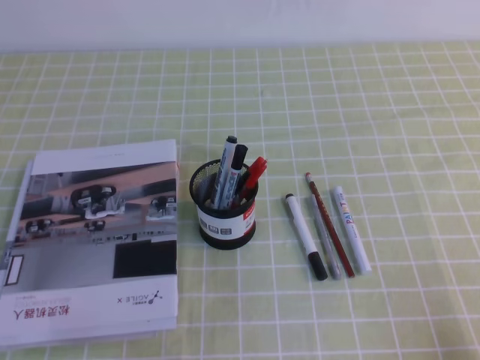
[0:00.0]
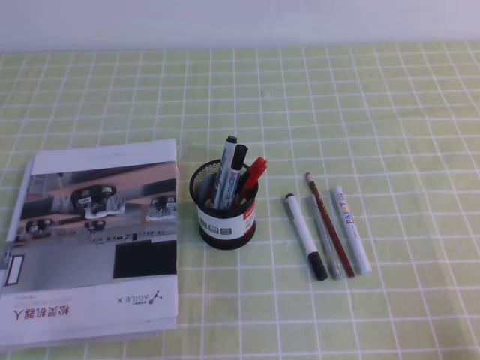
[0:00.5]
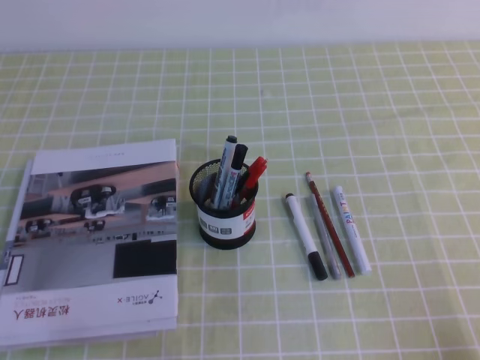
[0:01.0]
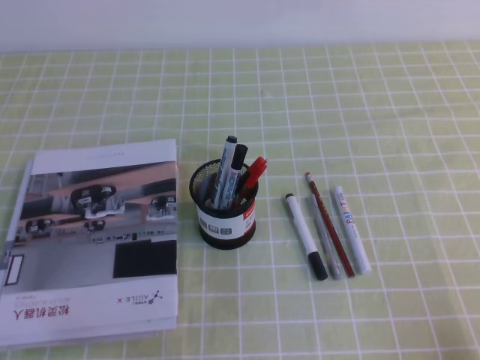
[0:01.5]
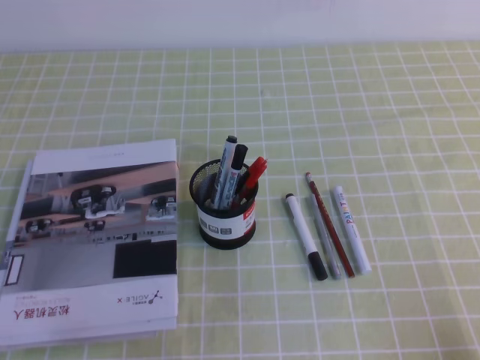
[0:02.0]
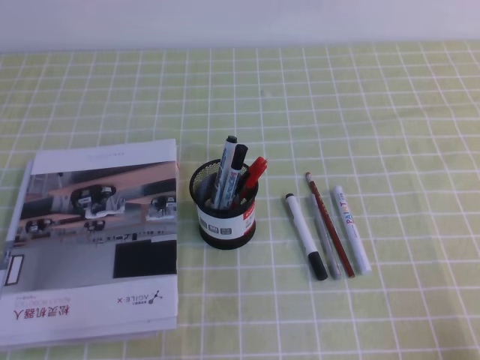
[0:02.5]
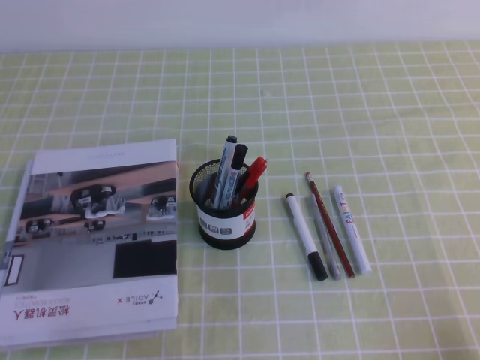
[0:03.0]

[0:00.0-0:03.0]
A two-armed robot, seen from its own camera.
0:00.0 to 0:03.0: Neither gripper changes place.

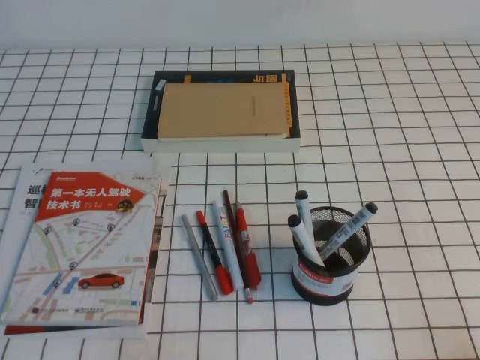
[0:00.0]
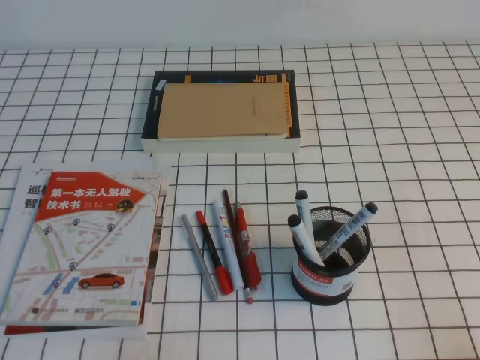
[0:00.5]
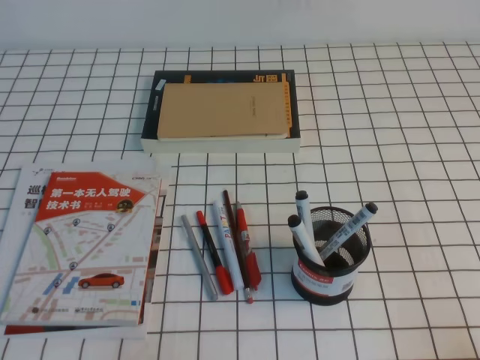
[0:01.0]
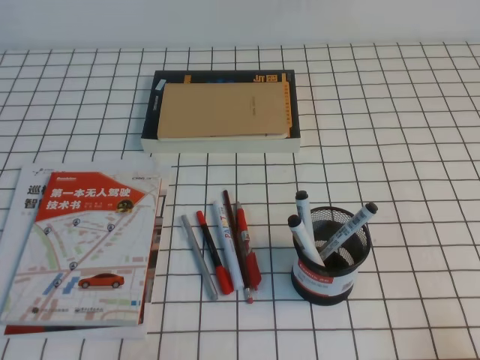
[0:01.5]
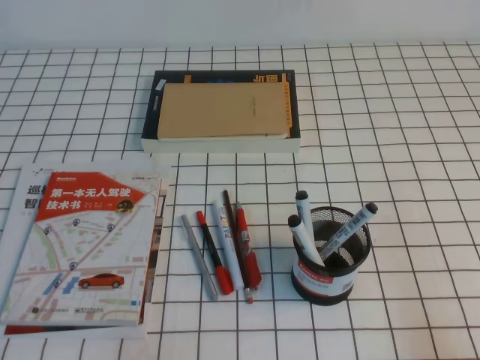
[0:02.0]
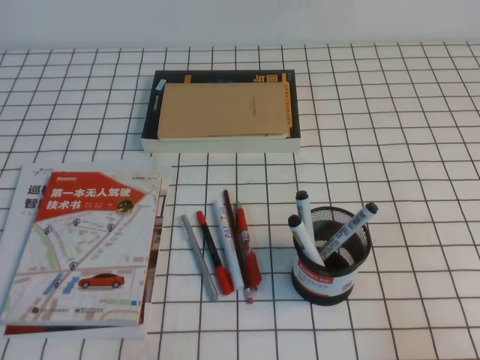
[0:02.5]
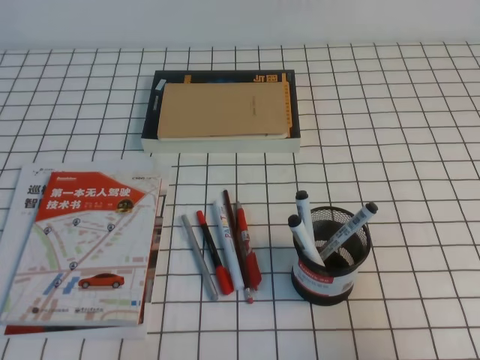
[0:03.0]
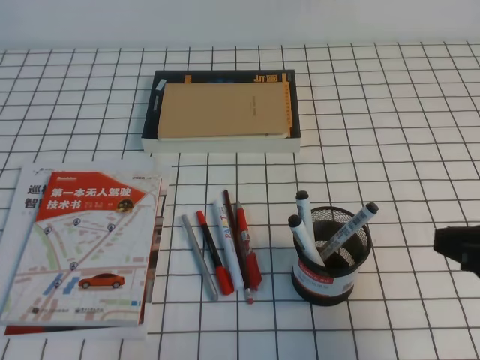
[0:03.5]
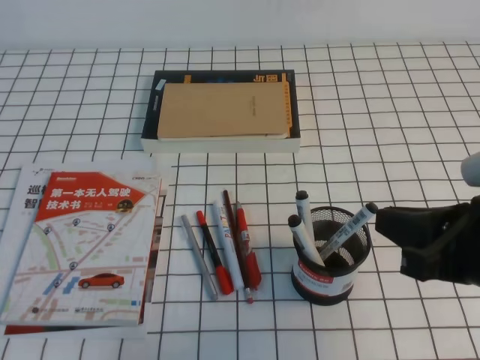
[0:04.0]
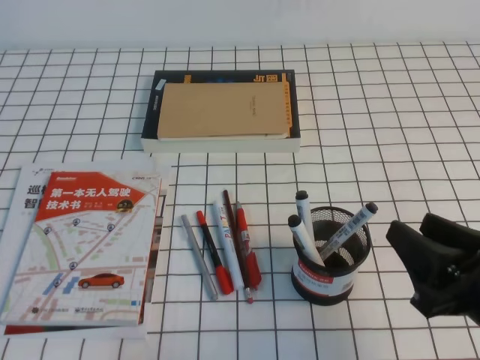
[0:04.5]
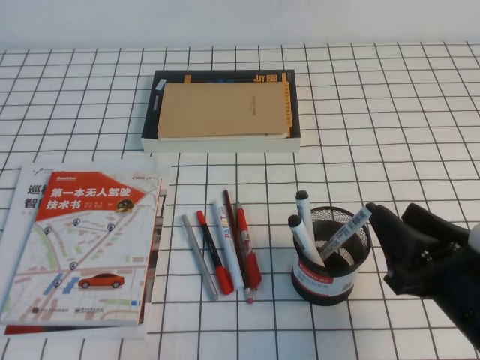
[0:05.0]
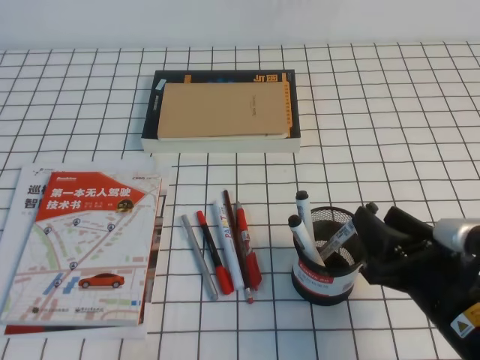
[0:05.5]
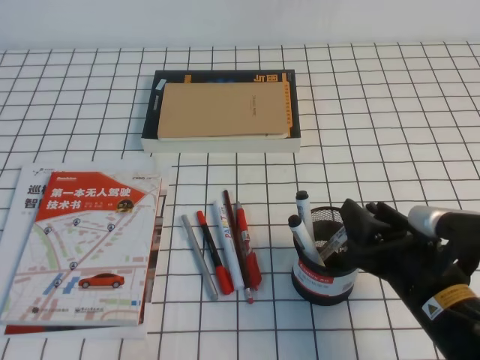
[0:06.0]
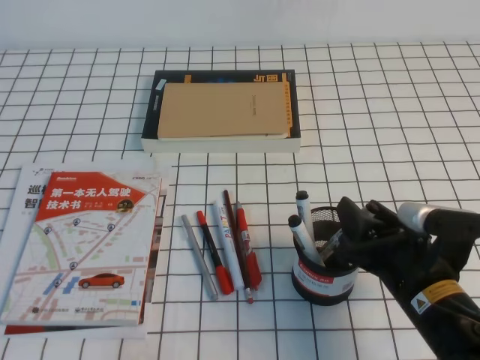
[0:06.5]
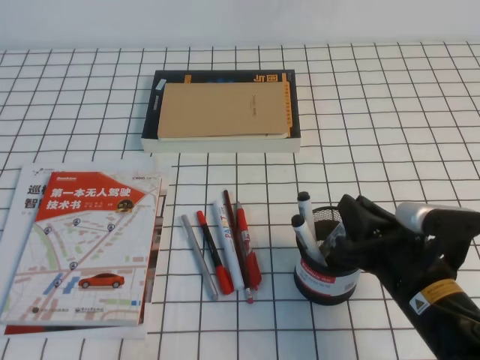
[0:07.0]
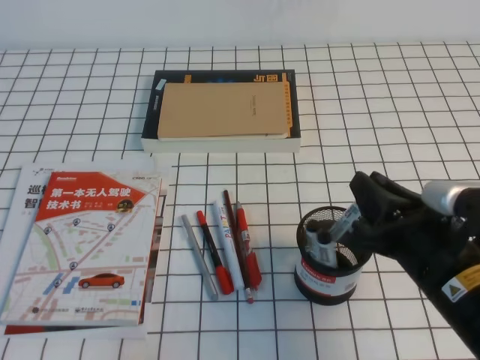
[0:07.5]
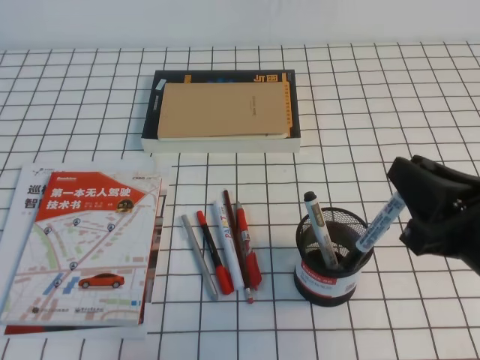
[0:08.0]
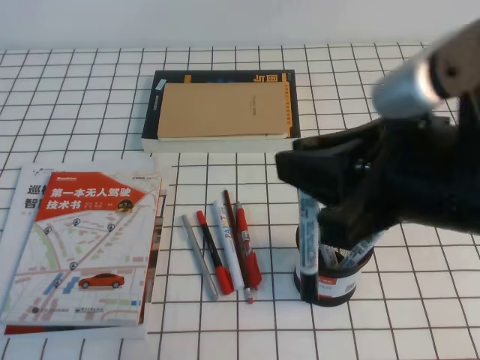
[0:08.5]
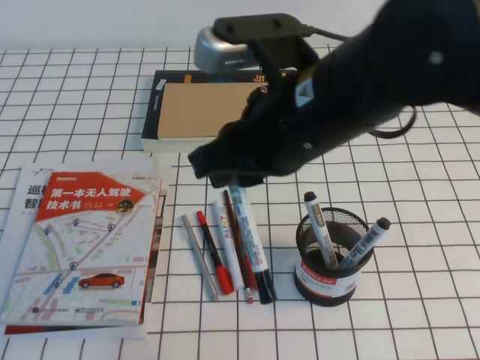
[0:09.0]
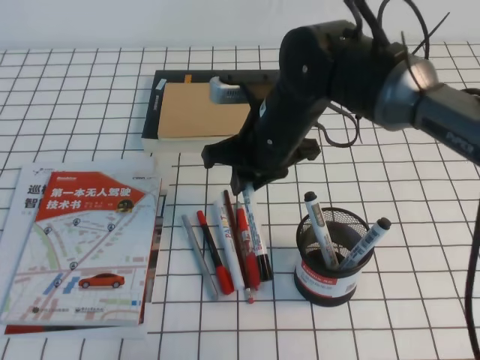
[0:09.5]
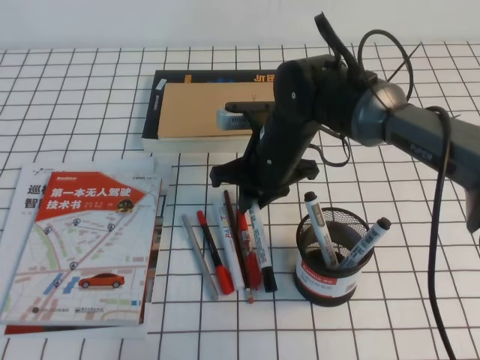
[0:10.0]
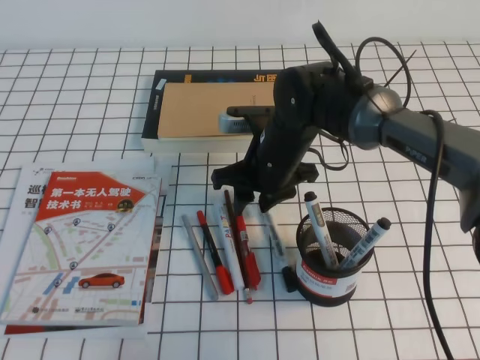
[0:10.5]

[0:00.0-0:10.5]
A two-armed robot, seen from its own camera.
0:02.0 to 0:04.0: The right gripper travels to the left, forward and upward by roughly 15 cm.
0:04.0 to 0:06.5: The right gripper moves downward and to the left, approximately 15 cm, and opens up.
0:06.5 to 0:08.5: The right gripper goes approximately 20 cm upward, and closes.
0:08.5 to 0:10.5: The right gripper shifts approximately 30 cm forward, downward and to the left, and opens up.

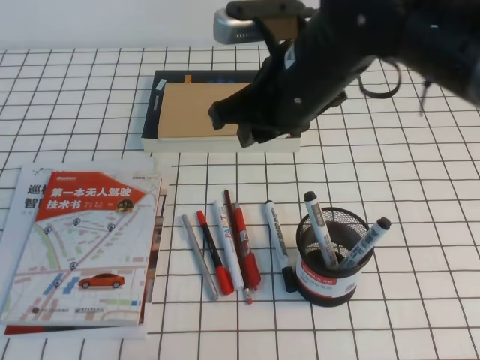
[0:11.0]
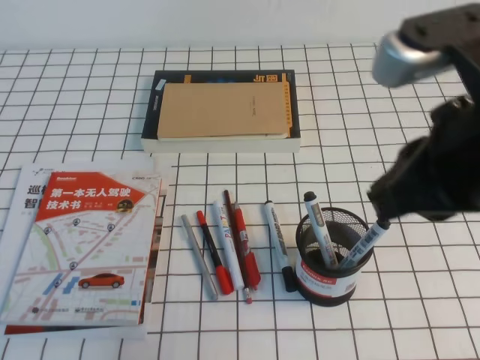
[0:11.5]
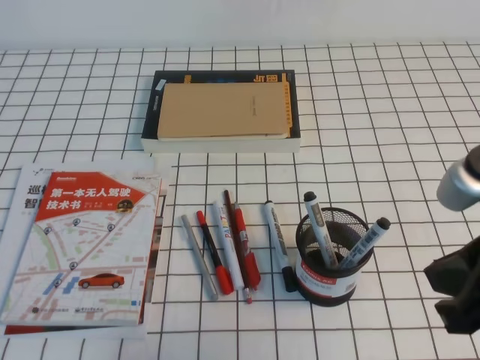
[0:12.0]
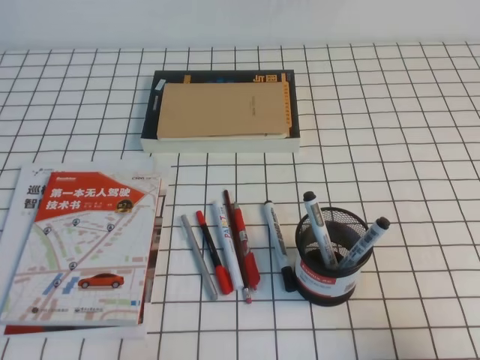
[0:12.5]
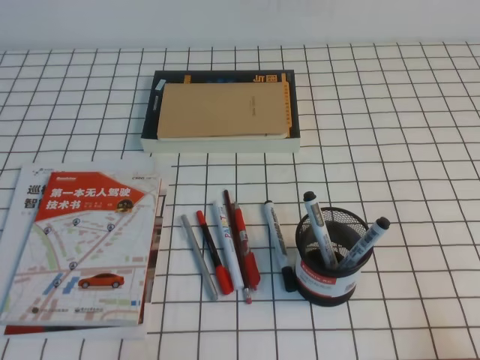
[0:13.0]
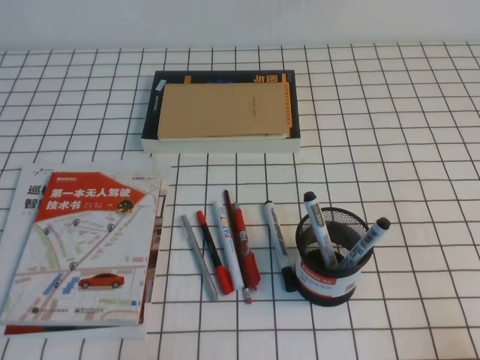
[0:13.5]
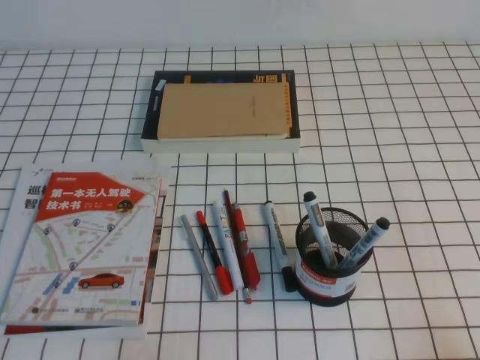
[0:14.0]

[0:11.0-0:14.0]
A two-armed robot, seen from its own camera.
Step, 0:11.0 to 0:14.0: Pick up the pen from the pen holder.
0:11.0 to 0:12.5: The right gripper travels to the right, backward and downward by about 30 cm, and closes up.
0:12.5 to 0:14.0: The right gripper goes some 10 cm downward and backward.

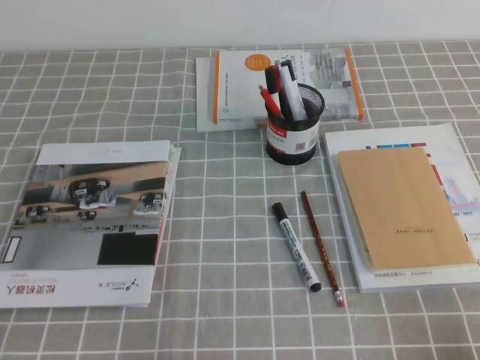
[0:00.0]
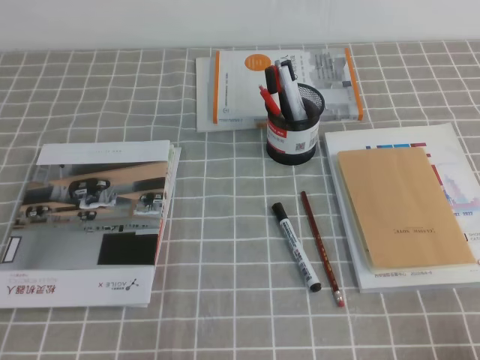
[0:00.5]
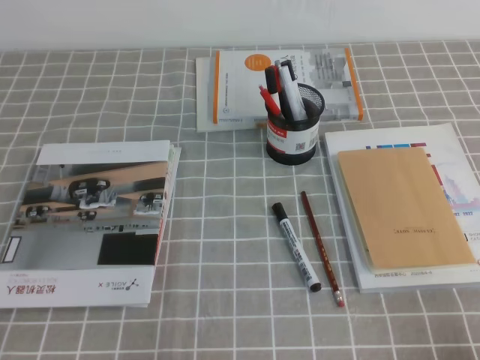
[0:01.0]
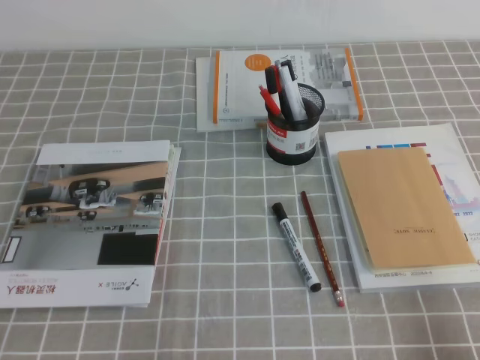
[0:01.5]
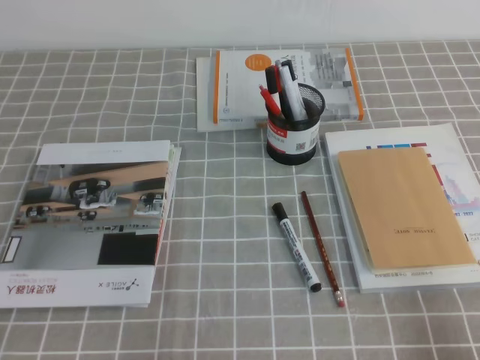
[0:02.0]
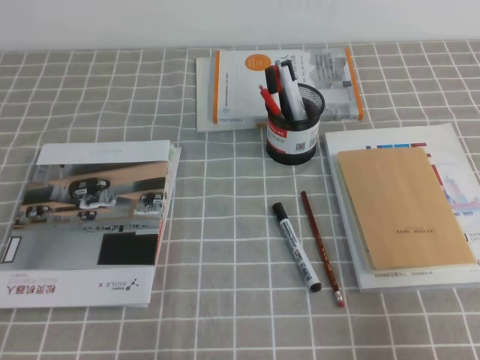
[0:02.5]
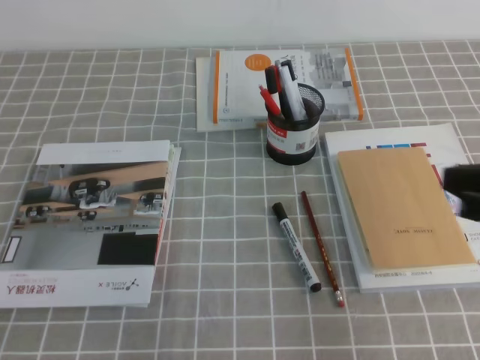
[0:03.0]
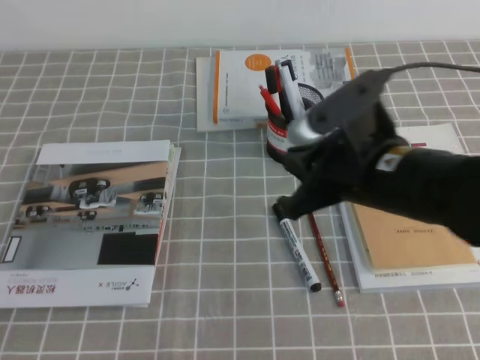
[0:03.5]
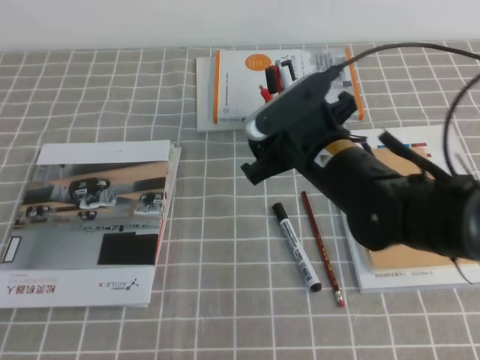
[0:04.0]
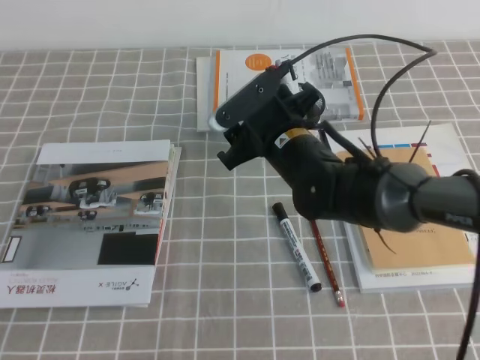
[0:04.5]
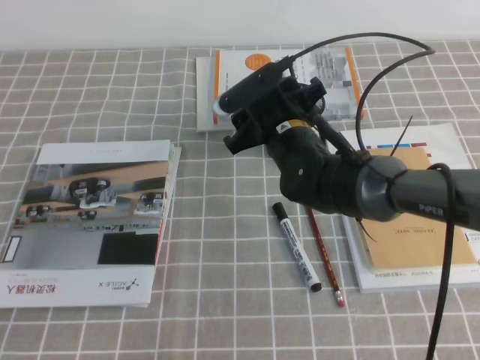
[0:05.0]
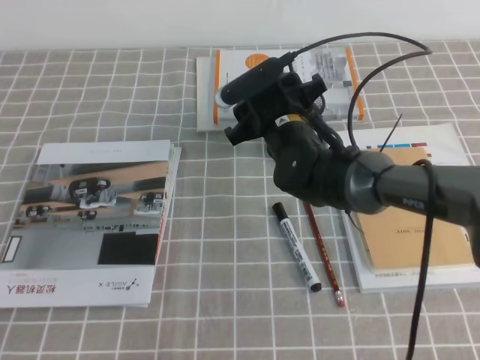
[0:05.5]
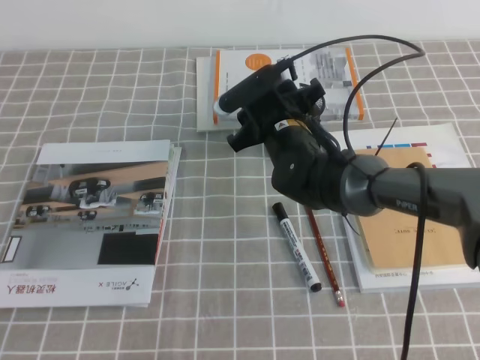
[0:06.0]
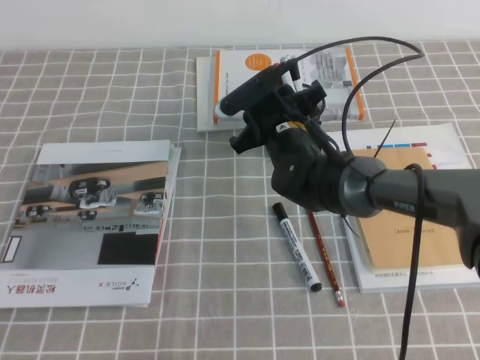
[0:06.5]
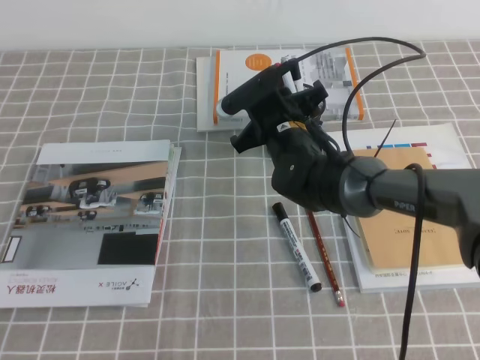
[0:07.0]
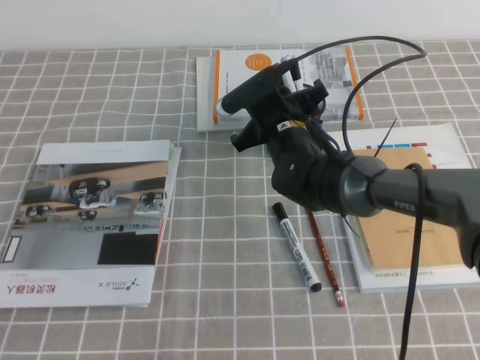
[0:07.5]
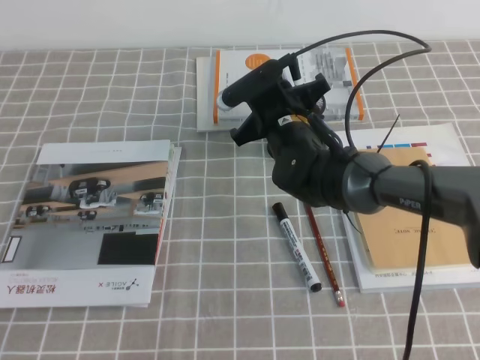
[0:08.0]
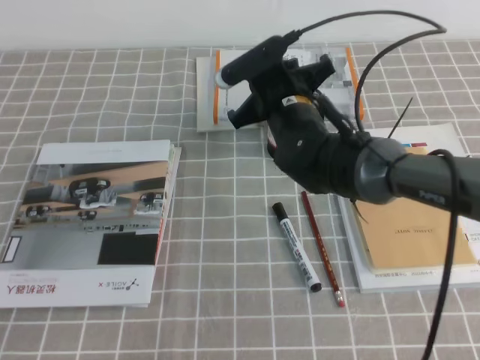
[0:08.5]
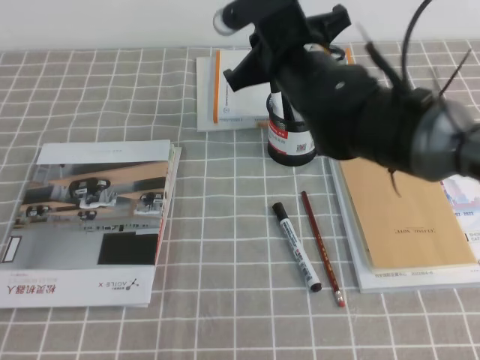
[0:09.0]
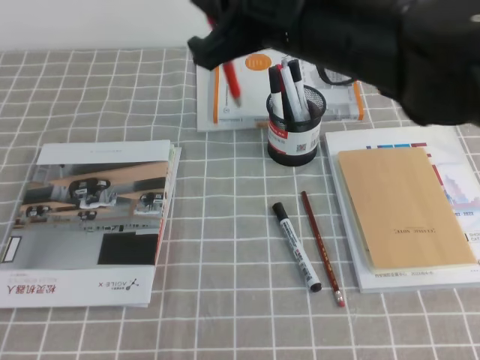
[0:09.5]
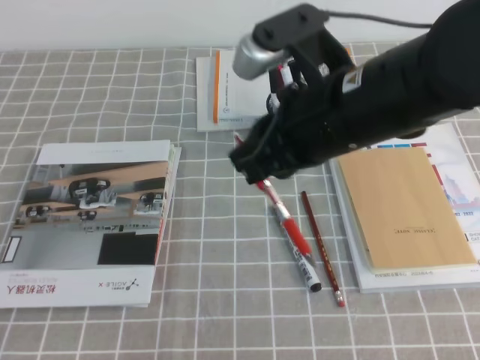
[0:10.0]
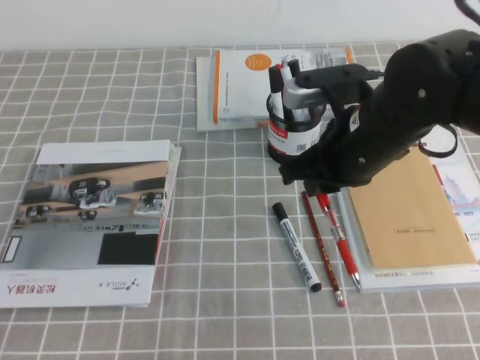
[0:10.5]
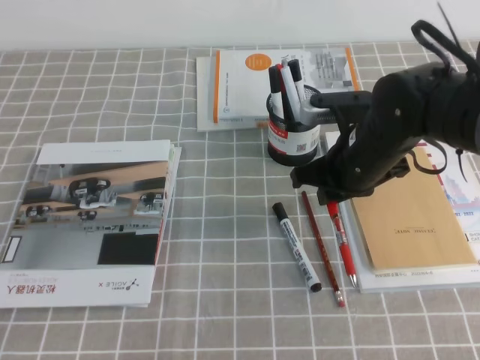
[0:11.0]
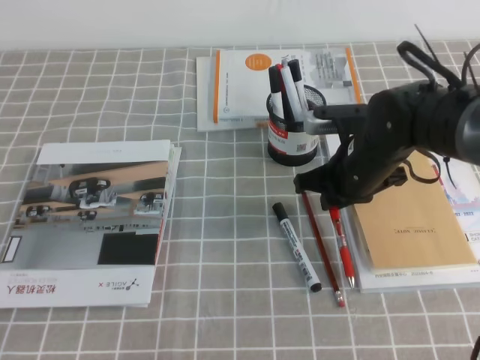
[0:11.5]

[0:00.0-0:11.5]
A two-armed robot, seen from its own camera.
0:02.0 to 0:04.0: The right gripper shifts some 35 cm forward and to the left, and opens its fingers.
0:04.0 to 0:06.0: The right gripper is displaced forward and downward by roughly 10 cm.
0:06.0 to 0:07.5: The right gripper closes.
0:07.5 to 0:09.5: The right gripper goes about 25 cm upward and backward.
0:09.5 to 0:11.5: The right gripper heads downward, covering about 20 cm.
